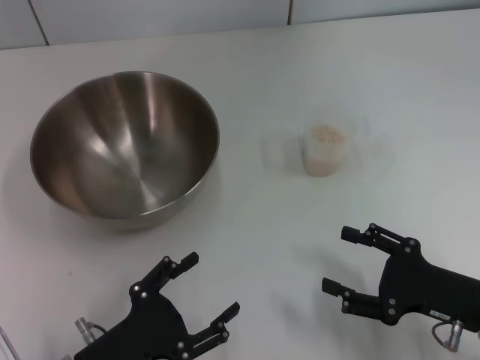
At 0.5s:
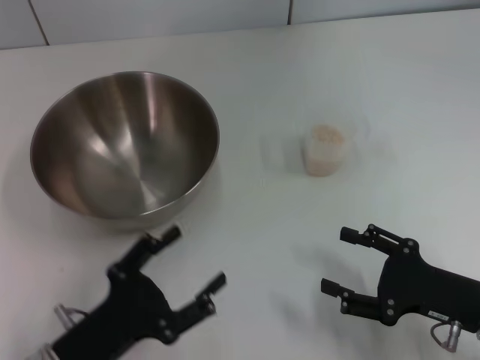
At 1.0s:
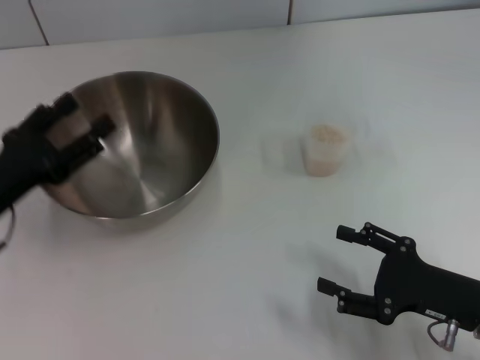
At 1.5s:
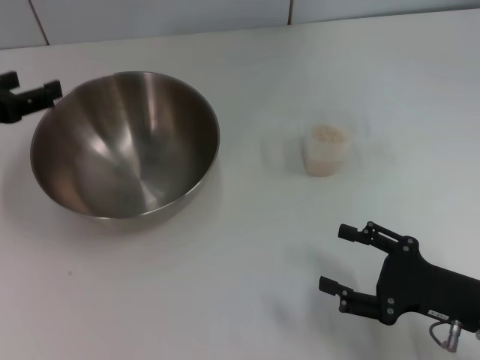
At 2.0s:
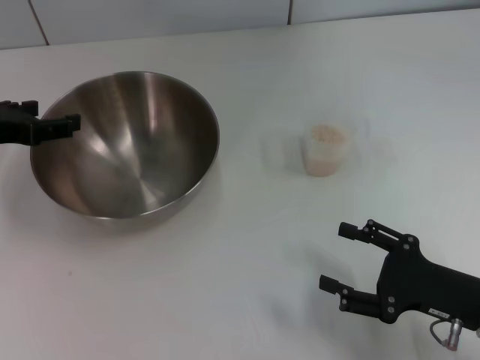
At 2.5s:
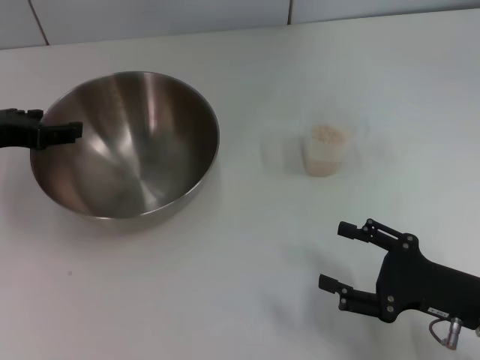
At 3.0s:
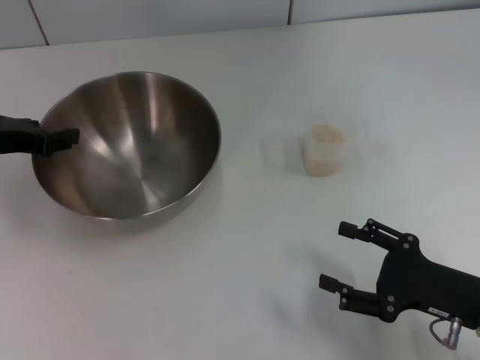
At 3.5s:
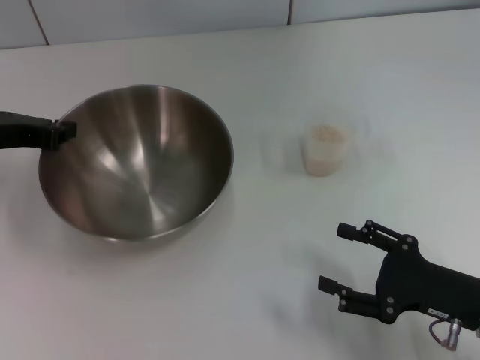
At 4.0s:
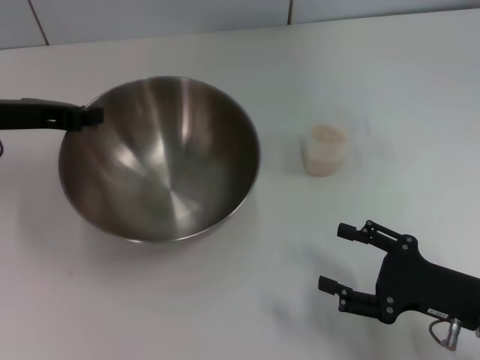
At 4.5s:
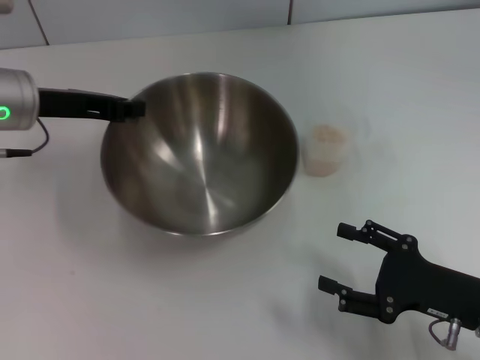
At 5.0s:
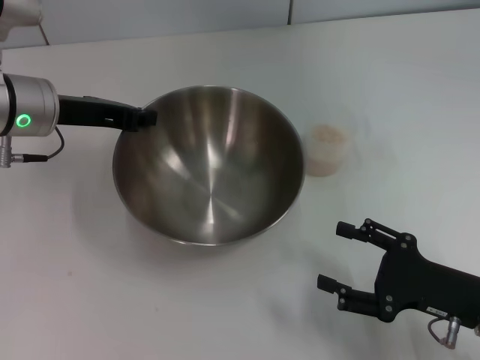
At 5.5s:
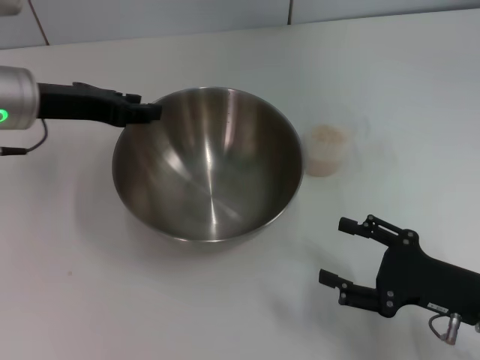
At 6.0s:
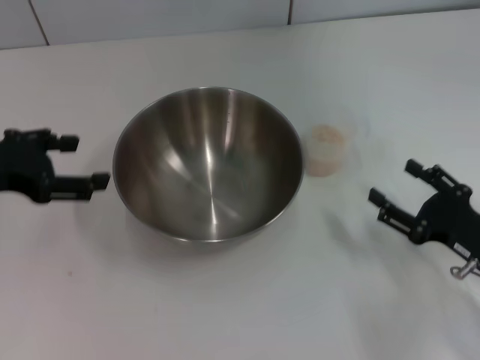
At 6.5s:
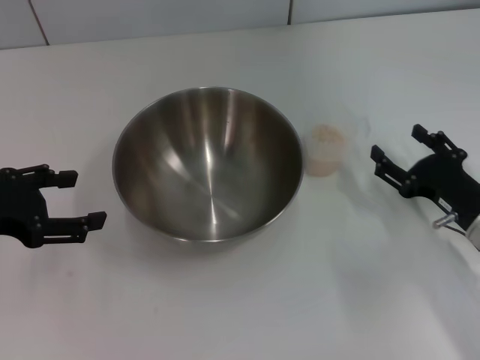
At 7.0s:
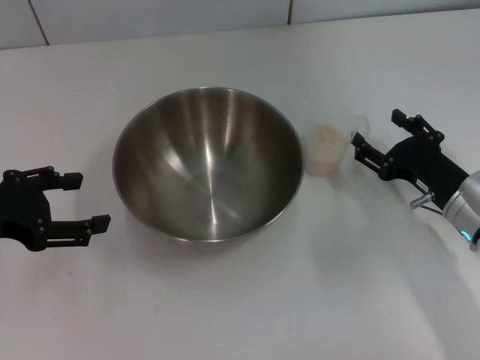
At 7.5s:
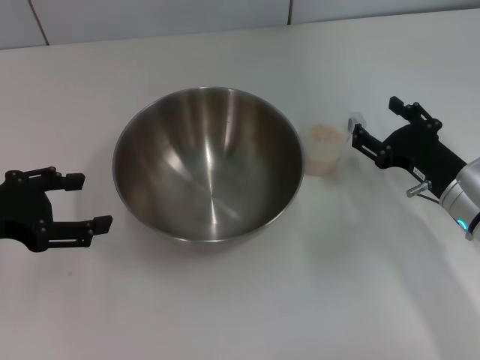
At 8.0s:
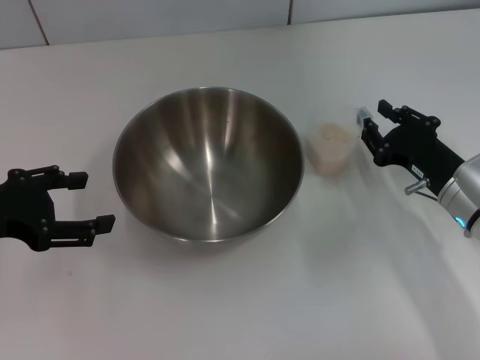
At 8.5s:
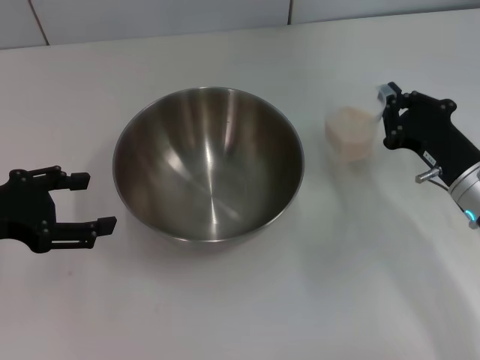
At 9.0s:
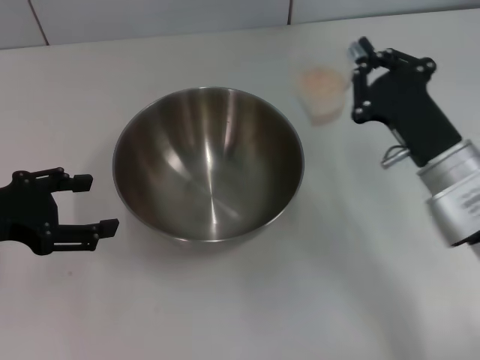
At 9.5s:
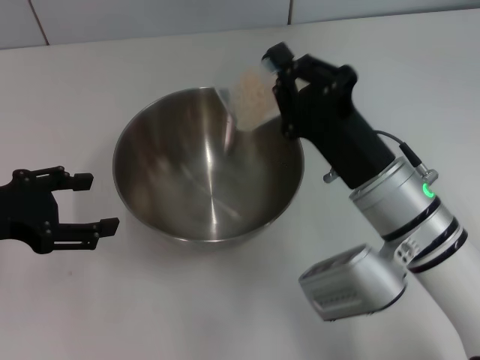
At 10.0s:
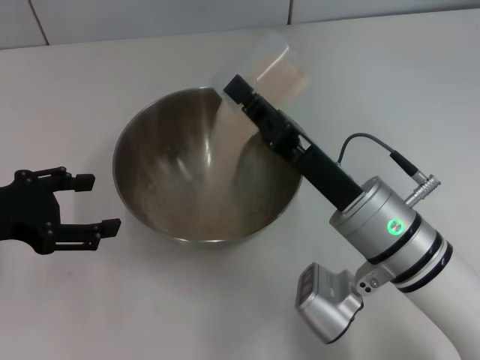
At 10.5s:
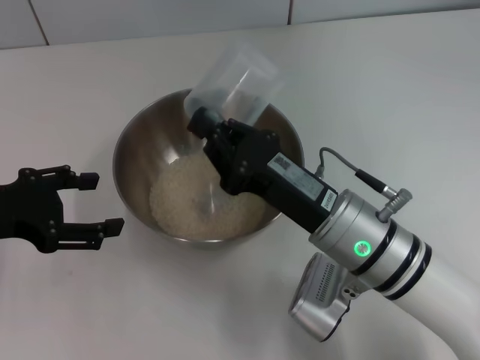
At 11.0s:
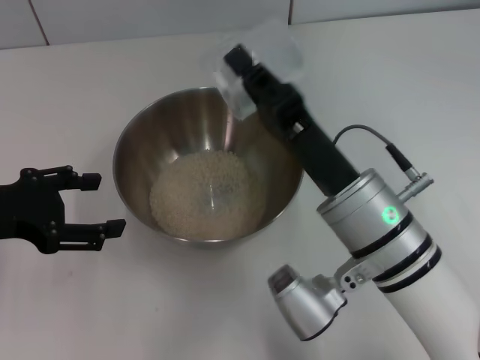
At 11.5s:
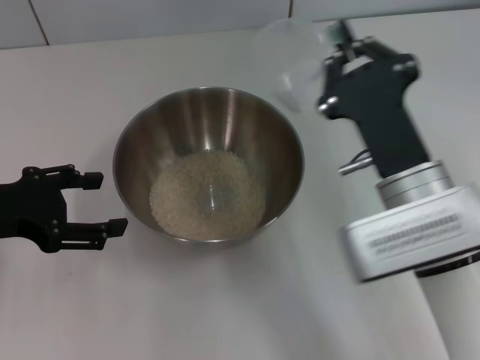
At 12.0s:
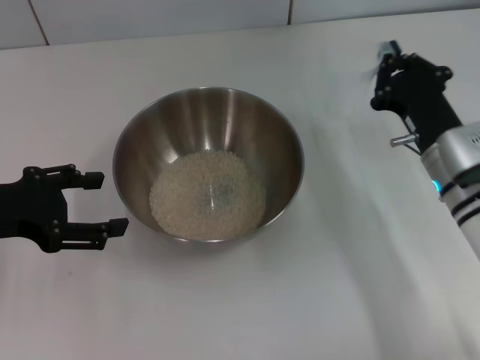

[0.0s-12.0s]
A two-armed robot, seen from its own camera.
Task of the whole recording: Place the bowl in the middle of the table with one hand and pour the rice from the grain cup into it with the other hand.
Step, 0.0s to 4.0s: Pick up the bowl with the left gripper.
Step, 4.5s to 5.5s: Place the bowl in the center of view with the left gripper.
Step, 6.0s to 8.5s: Pick up the cup with rice in it with the right gripper.
Step, 9.0s to 11.0s: Pour the rice from the cup into the bowl with the right gripper.
0.0s to 2.0s: The left gripper goes about 25 cm forward, upward and to the left.
2.0s to 4.0s: The left gripper closes up.
4.0s to 6.0s: The left gripper shifts approximately 5 cm backward, and opens up.
6.0s to 8.0s: The right gripper is displaced forward by roughly 10 cm.
8.0s to 10.0s: The right gripper moves to the left and upward, roughly 15 cm, and closes.
10.0s to 12.0s: The right gripper travels to the right and forward by roughly 10 cm.

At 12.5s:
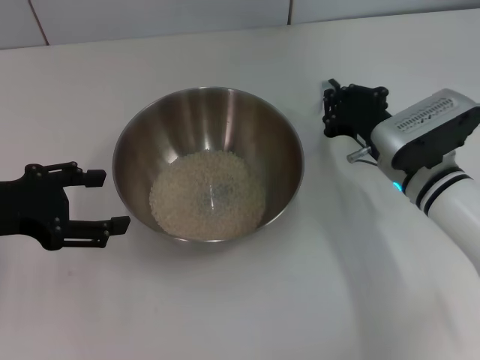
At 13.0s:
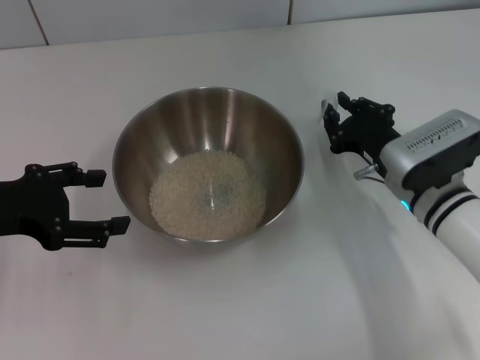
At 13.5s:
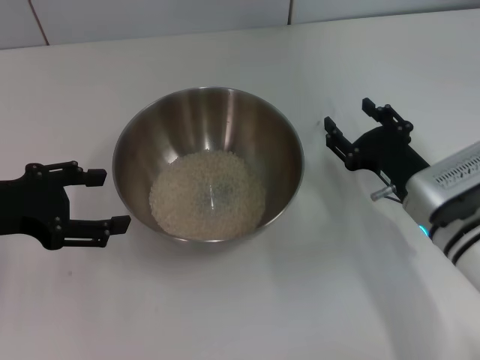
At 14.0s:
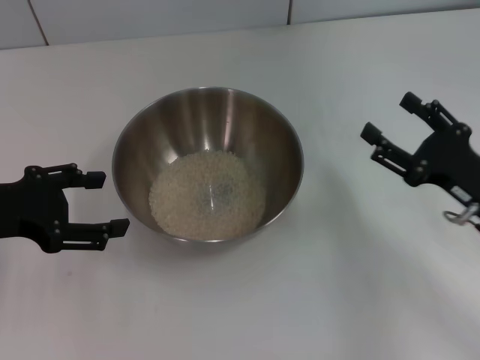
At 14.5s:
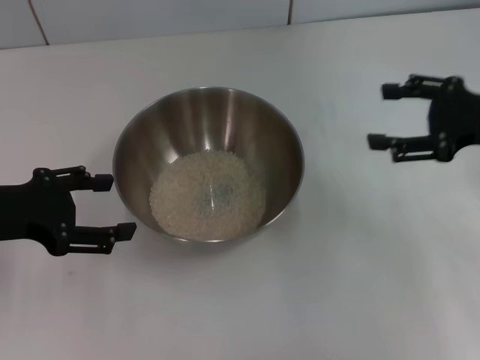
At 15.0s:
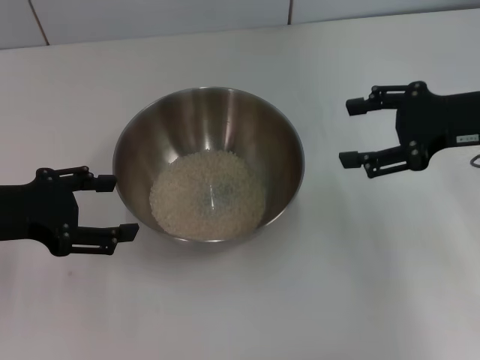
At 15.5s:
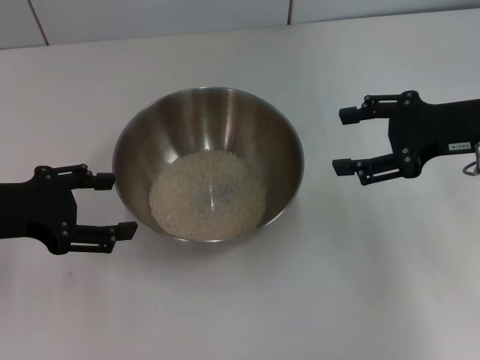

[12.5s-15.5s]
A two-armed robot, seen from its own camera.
Task of the whole recording: Place the bowl in the middle of the table with one hand and pour the rice from the grain cup into it with the other hand.
12.5s to 14.0s: The right gripper moves backward and to the right, about 15 cm, and opens.
14.0s to 15.5s: The right gripper heads upward and forward, covering approximately 15 cm.

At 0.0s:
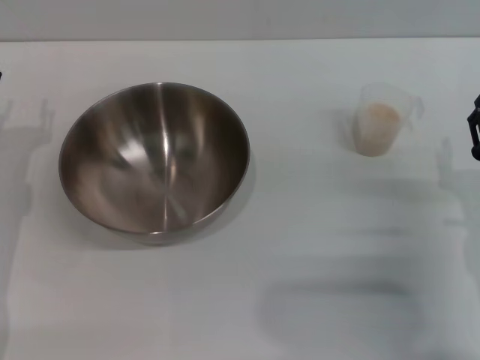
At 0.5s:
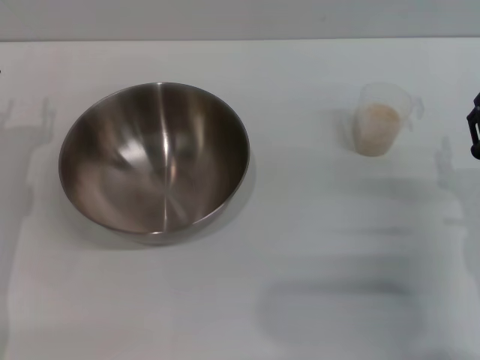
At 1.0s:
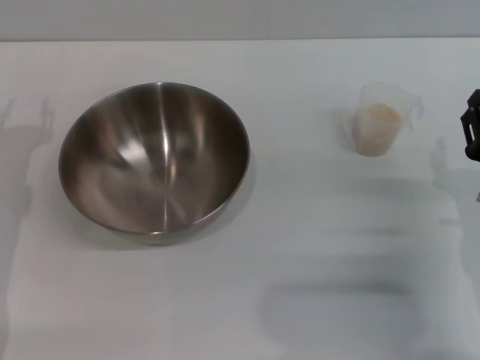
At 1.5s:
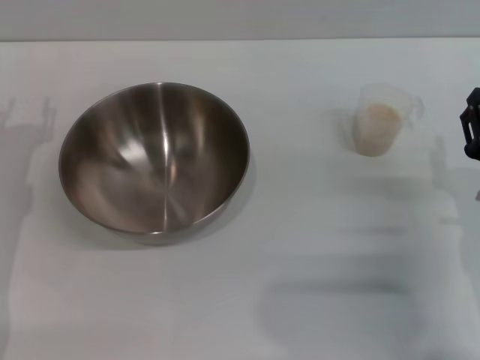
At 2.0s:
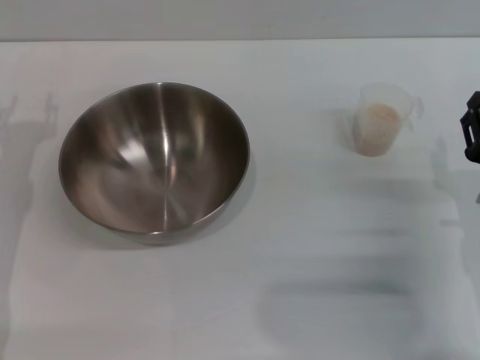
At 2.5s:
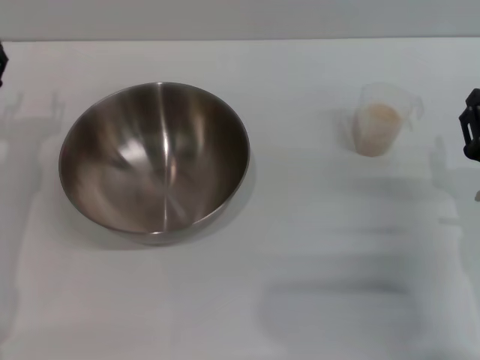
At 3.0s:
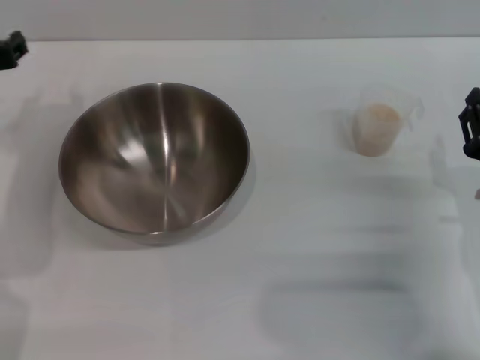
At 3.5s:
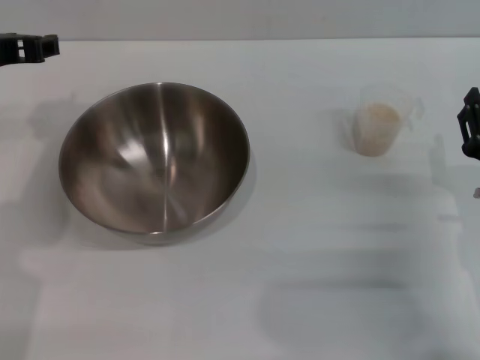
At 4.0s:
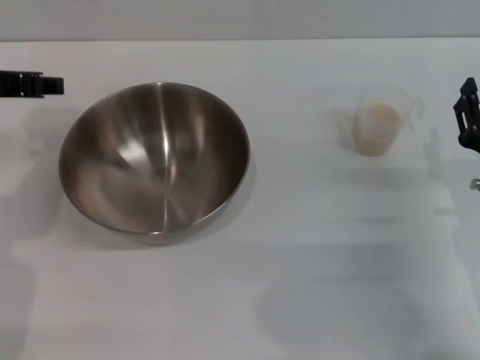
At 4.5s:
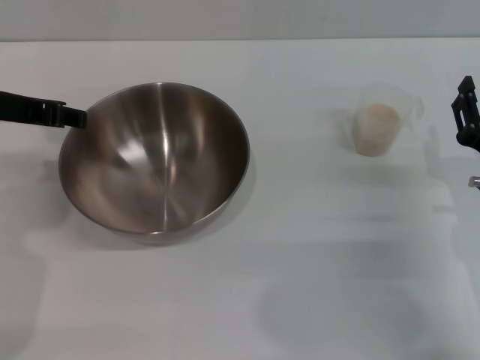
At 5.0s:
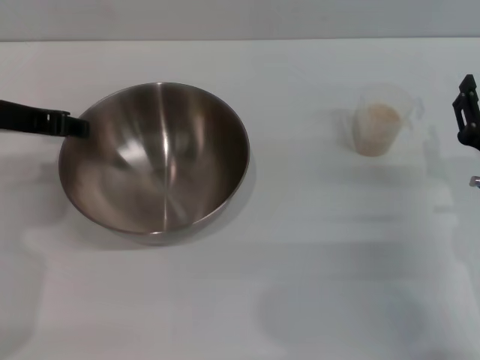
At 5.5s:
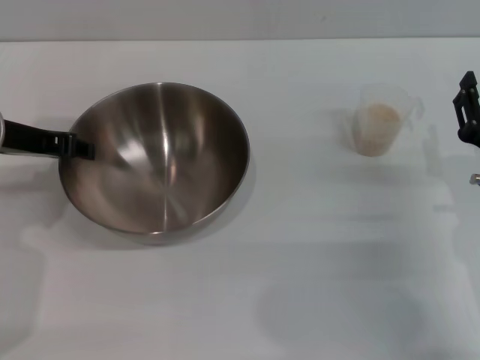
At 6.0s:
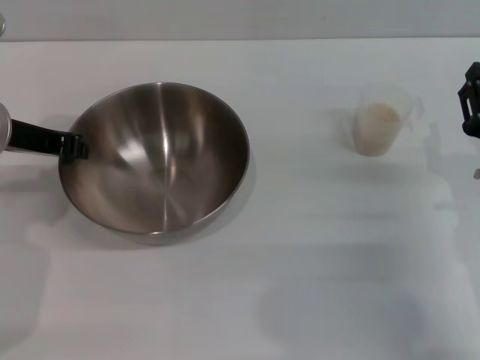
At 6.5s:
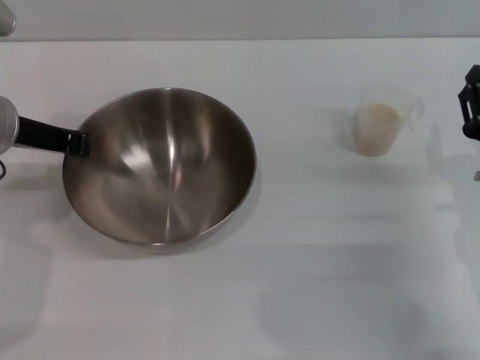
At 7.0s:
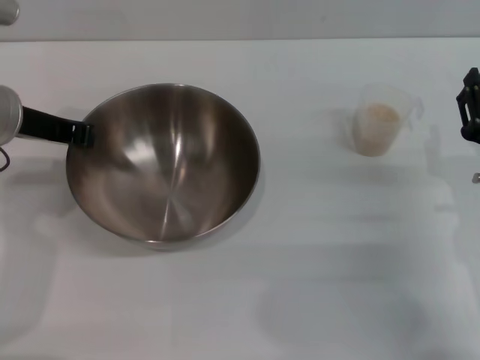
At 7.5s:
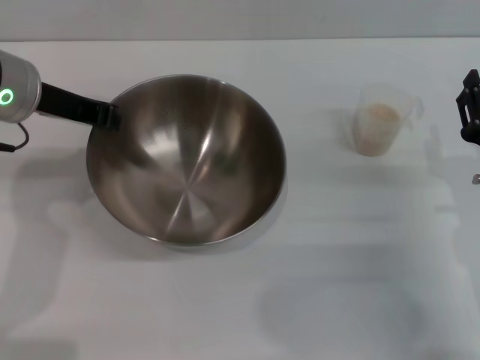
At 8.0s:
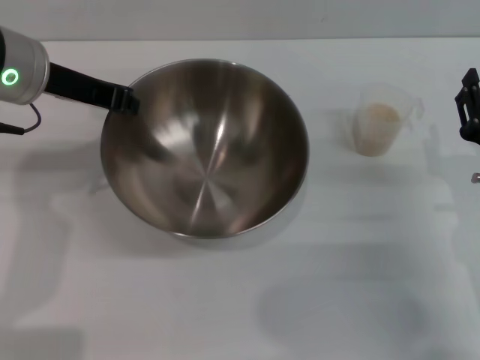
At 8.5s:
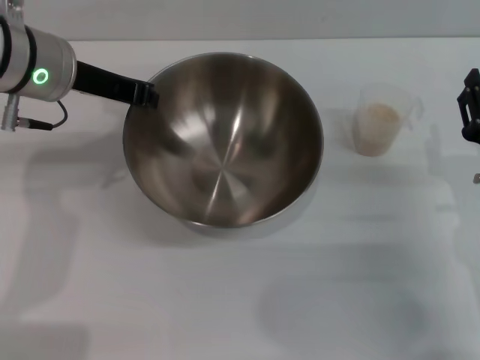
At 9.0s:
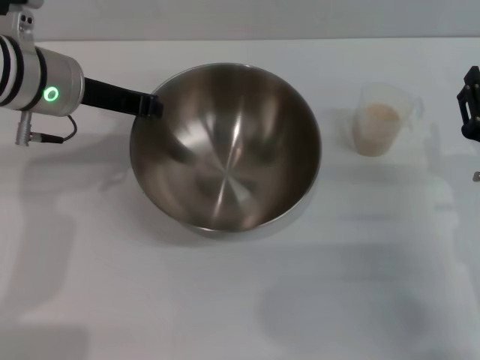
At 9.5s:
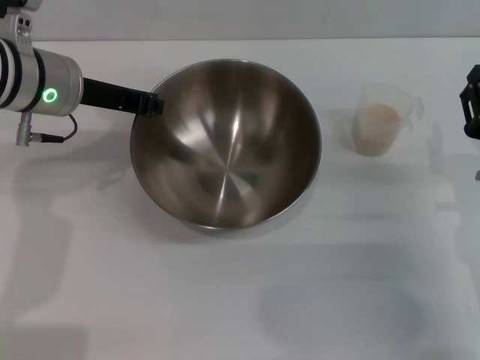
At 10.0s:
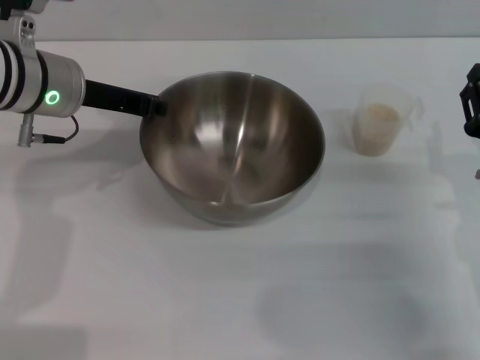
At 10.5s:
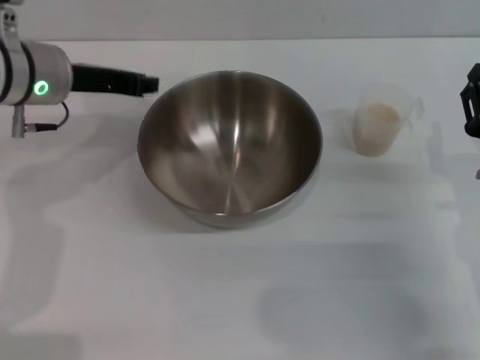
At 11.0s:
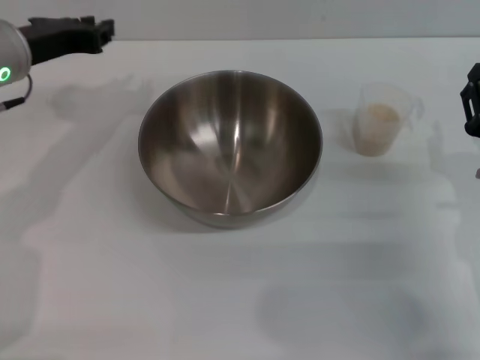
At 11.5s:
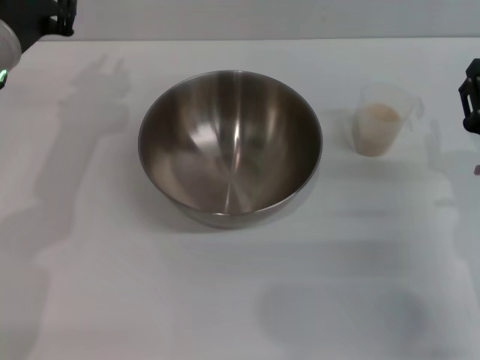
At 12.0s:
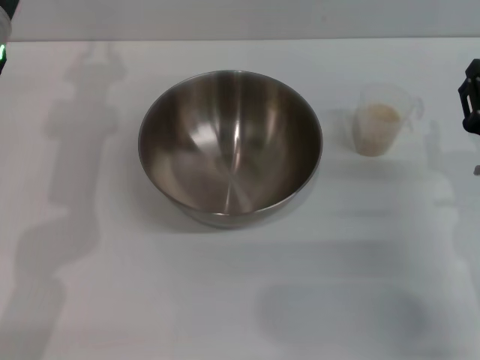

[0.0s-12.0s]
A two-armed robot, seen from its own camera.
Task of the whole recording: Place the bowl in the middle of the table with one hand and pour the rice from the grain cup into it with the other hand.
Step, 0.0s to 7.5s: Pick up the bowl with the left gripper.
Step, 8.0s to 10.5s: Place the bowl in the center of view with the left gripper.
0.0s to 2.0s: Neither gripper changes place.
2.0s to 4.0s: The left gripper shifts about 15 cm upward.
4.0s to 6.0s: The grippers stay close to where they were, moving slightly.
6.0s to 8.0s: The left gripper moves approximately 5 cm, and closes its fingers.
8.0s to 10.0s: The left gripper shifts by some 5 cm.
10.0s to 12.0s: The left gripper opens its fingers.
